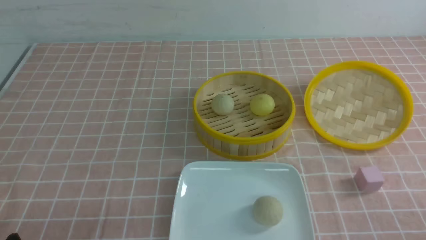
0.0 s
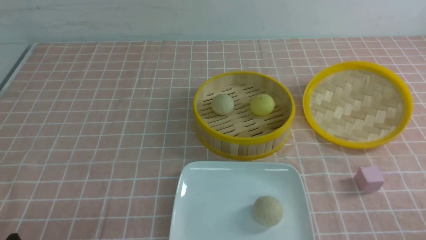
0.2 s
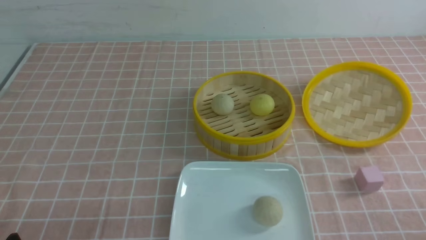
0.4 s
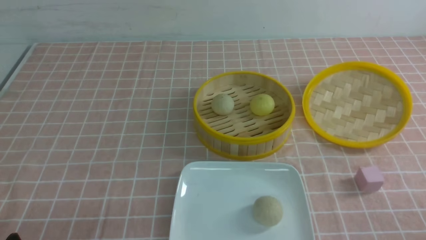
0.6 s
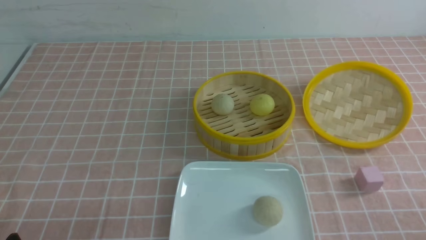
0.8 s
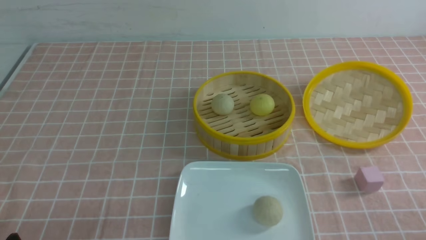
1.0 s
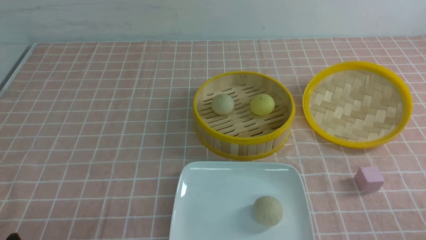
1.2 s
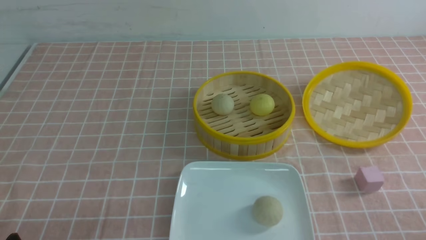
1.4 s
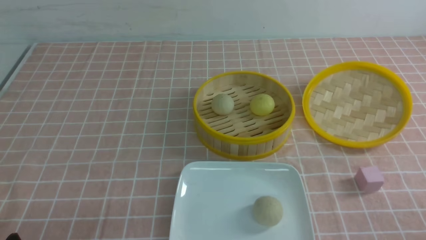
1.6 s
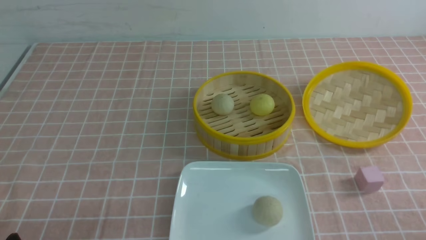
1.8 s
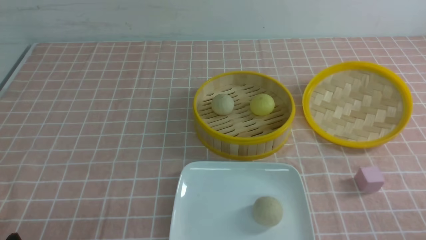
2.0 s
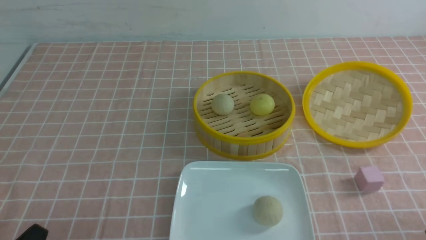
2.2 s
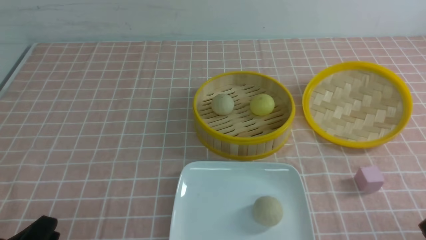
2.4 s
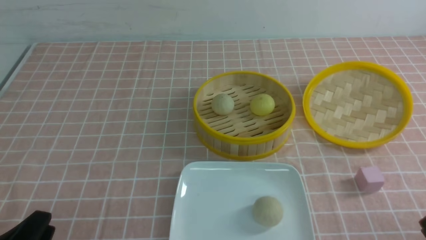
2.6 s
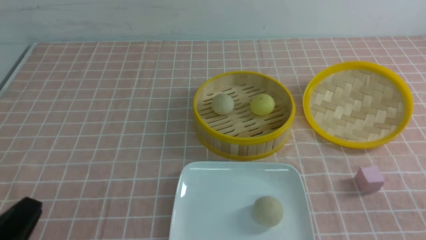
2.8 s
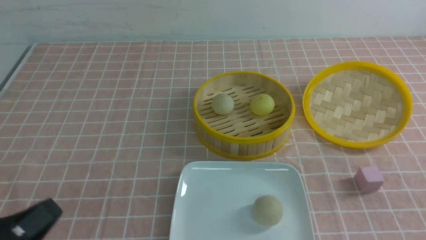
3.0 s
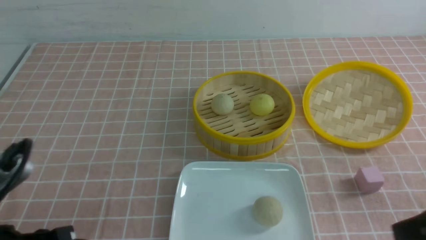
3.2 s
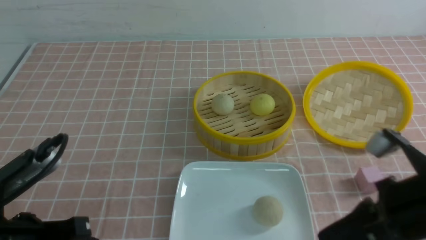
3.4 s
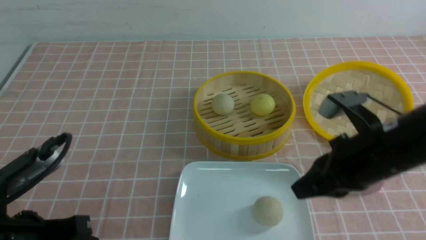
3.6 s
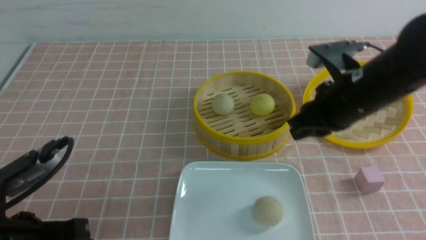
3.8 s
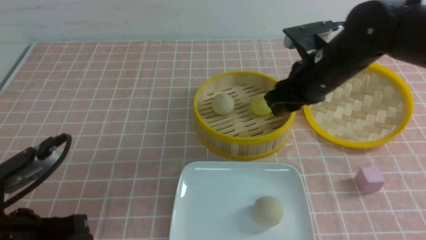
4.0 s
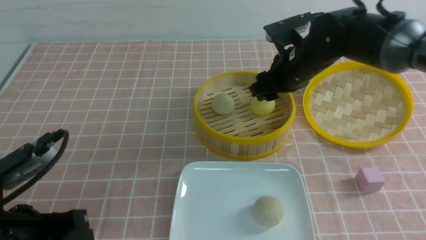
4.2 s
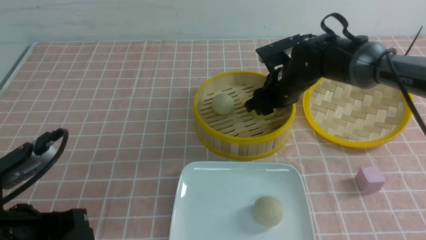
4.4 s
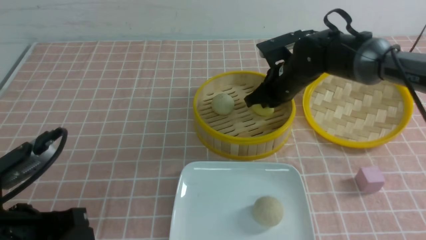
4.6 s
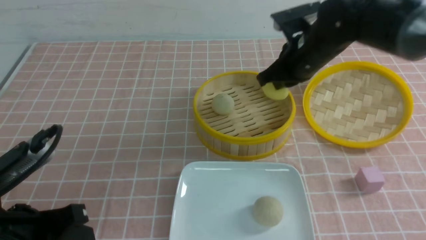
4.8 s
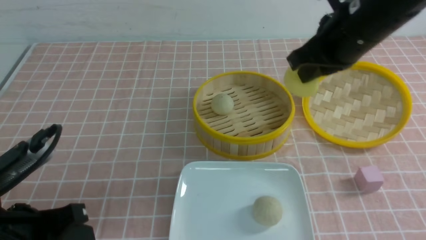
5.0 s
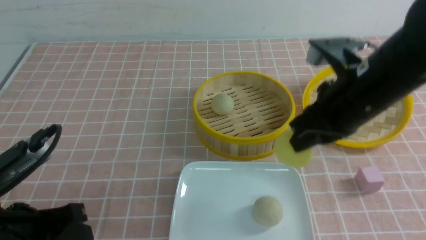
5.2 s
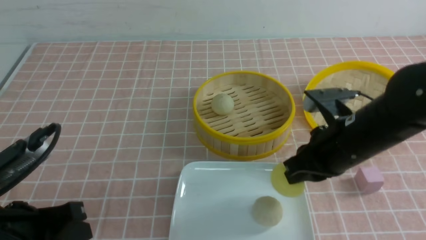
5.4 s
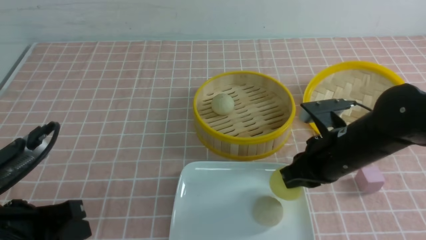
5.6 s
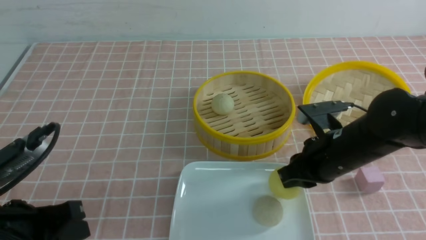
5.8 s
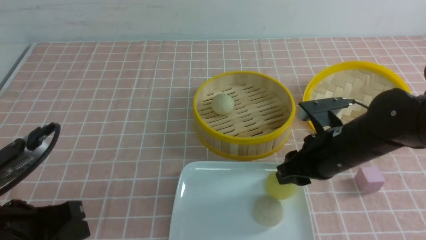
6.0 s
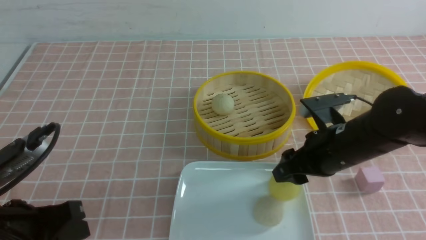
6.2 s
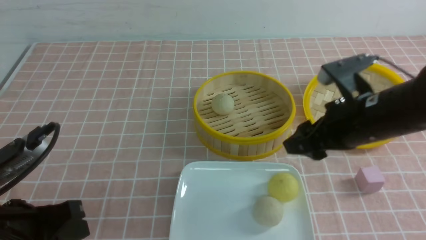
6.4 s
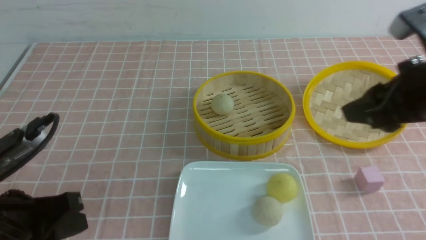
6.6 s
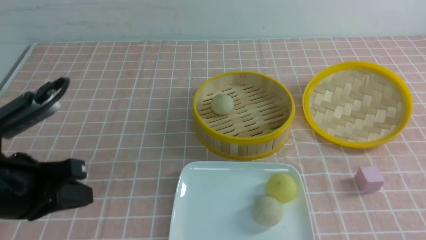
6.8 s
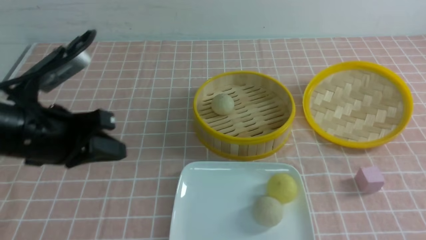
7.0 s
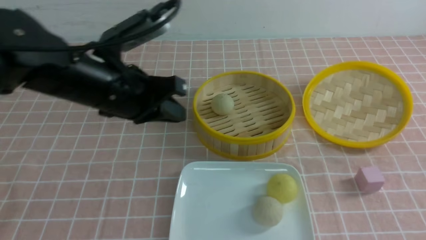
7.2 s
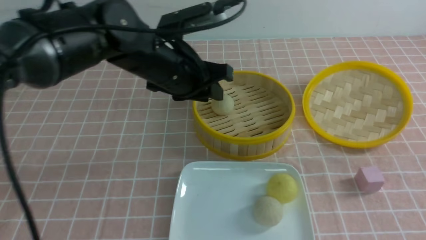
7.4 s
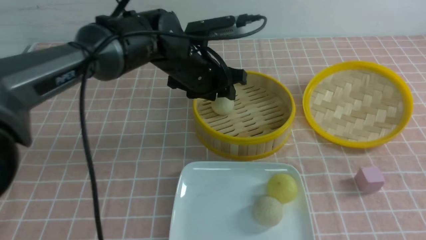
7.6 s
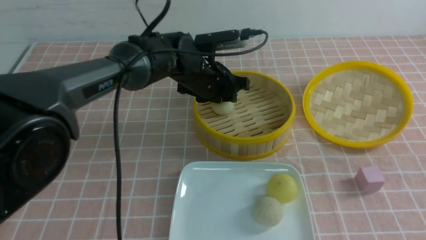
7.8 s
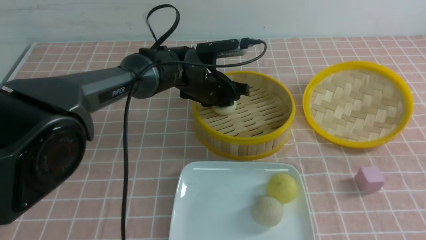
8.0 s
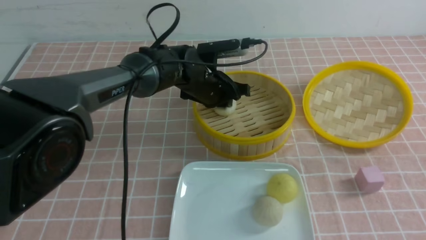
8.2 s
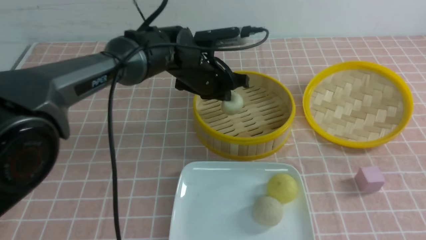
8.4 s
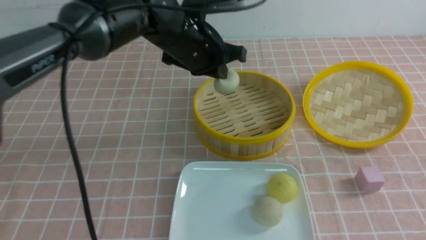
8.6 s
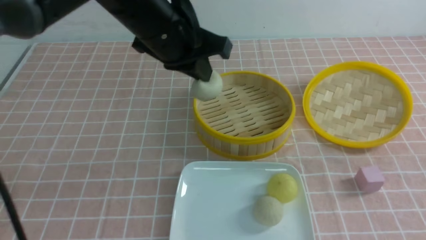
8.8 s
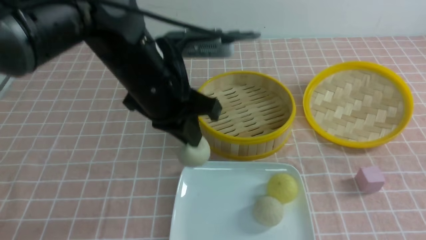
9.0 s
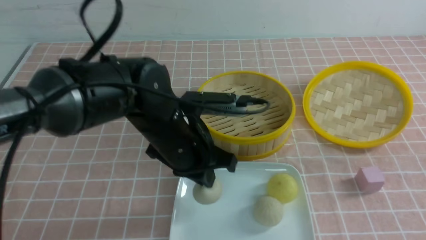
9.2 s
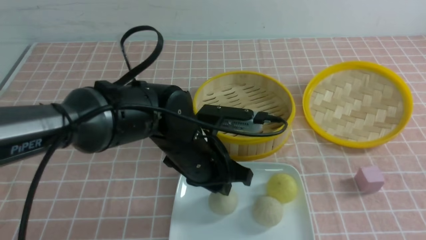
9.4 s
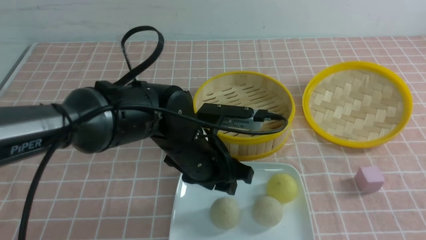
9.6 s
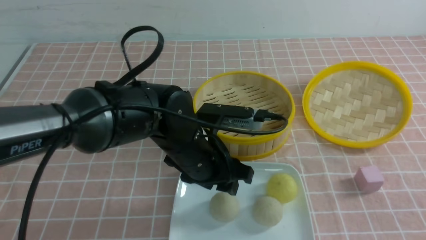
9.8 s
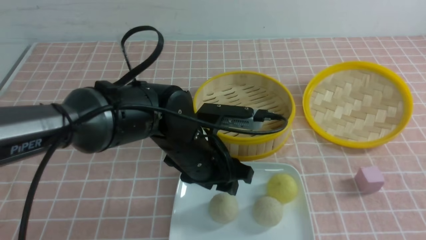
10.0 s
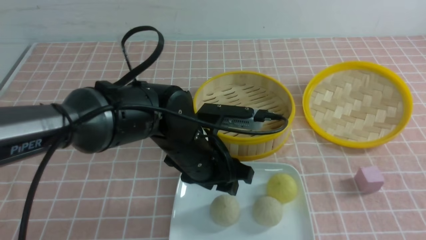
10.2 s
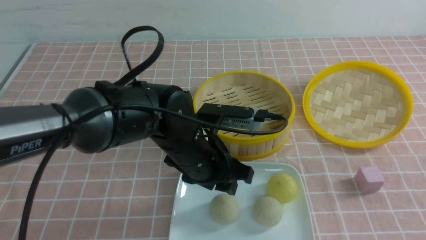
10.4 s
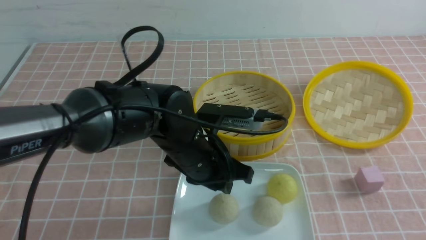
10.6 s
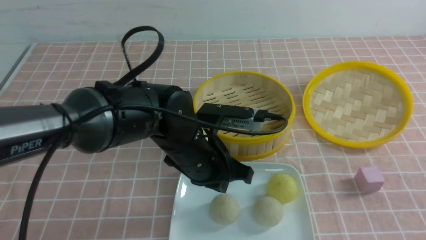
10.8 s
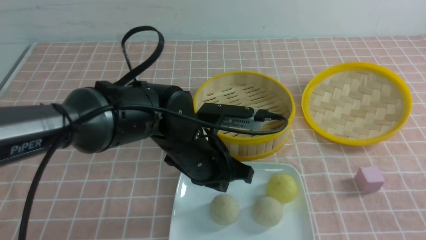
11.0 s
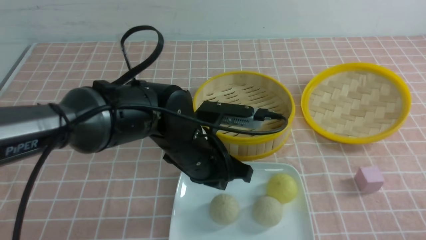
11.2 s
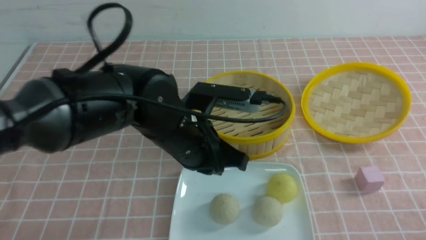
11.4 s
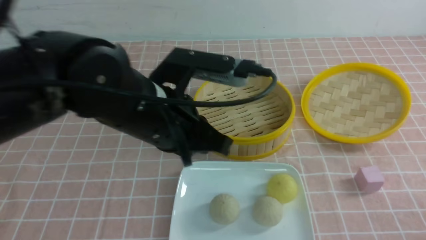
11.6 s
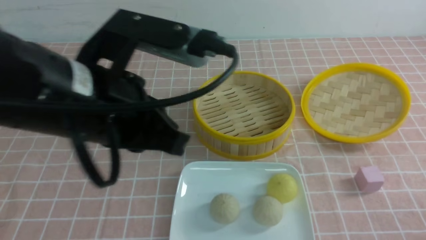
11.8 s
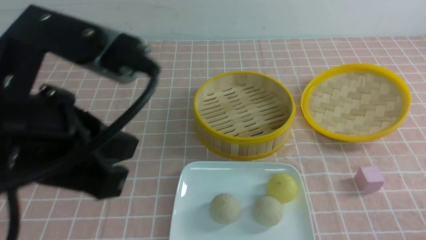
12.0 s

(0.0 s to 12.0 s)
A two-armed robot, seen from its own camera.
Step, 0.0 s - 4.6 s: use the right arm to grab the steamed stuffed bun that is closest to it.
Step, 4.8 s - 6.0 s: use the right arm to put the steamed stuffed bun into the plate.
Step, 6.4 s - 8.0 s: use the left arm to grab the steamed stuffed bun that is closest to it.
Step, 8.4 s - 9.6 s: use the left arm to put the steamed stuffed bun into the plate.
0.0 s - 1.6 s: Both grippers stay about where they are.
1.6 s - 3.0 s: The left gripper is displaced upward by roughly 10 cm, and closes up.
3.0 s - 4.4 s: The left gripper is displaced forward by some 5 cm. Meanwhile the right gripper moves forward and to the left, some 40 cm, and opens up.
4.4 s - 6.0 s: The right gripper moves backward, roughly 15 cm, and closes, then reopens.
6.0 s - 7.6 s: The left gripper moves forward and to the right, approximately 35 cm, and opens. The right gripper is displaced backward, to the right and upward by some 20 cm, and closes its fingers.
7.6 s - 9.0 s: The left gripper is displaced backward by approximately 10 cm, and closes.
9.0 s - 10.4 s: The left gripper goes approximately 10 cm downward, and opens up, while the right gripper travels backward by about 10 cm.
10.4 s - 12.0 s: The left gripper is displaced upward, backward and to the left by about 25 cm, and closes up. The right gripper shifts about 10 cm downward.

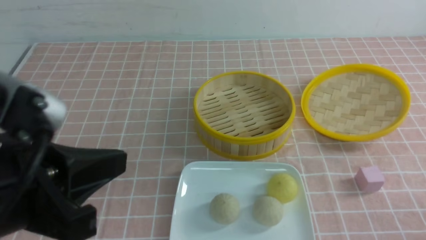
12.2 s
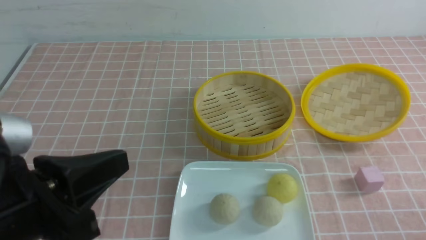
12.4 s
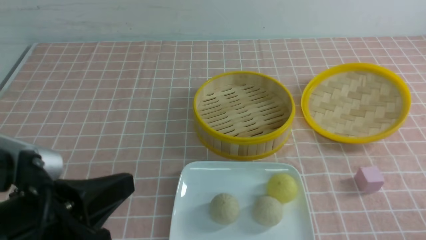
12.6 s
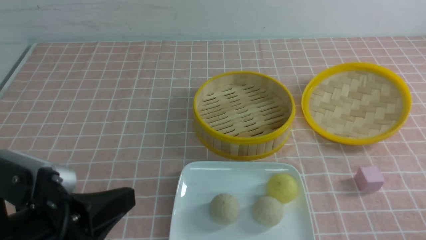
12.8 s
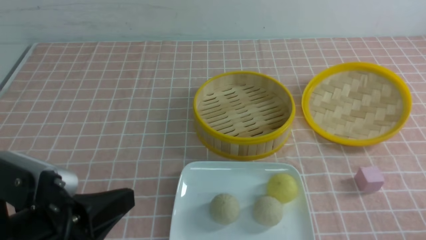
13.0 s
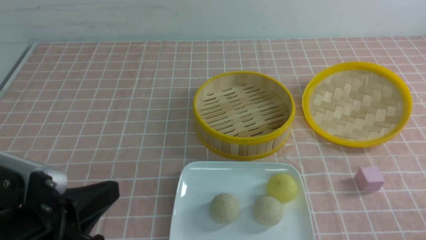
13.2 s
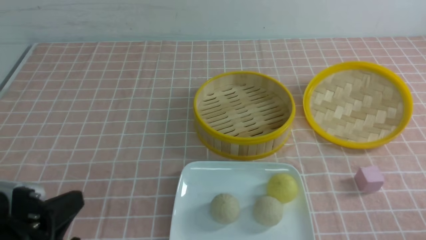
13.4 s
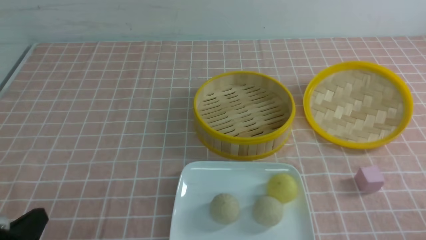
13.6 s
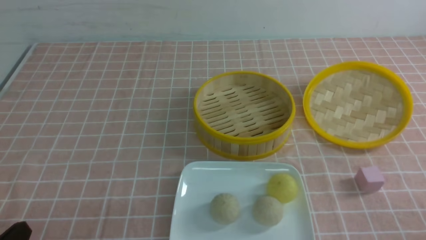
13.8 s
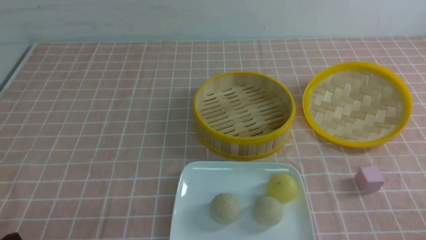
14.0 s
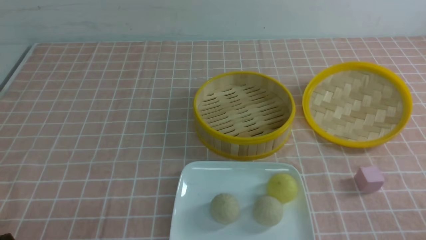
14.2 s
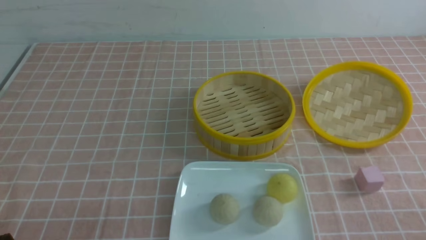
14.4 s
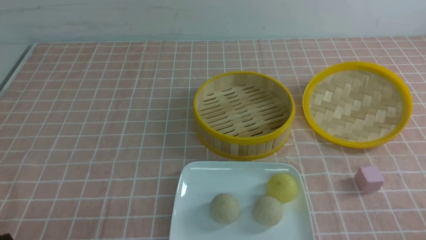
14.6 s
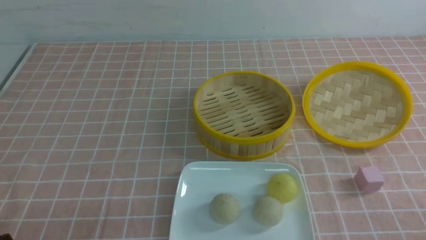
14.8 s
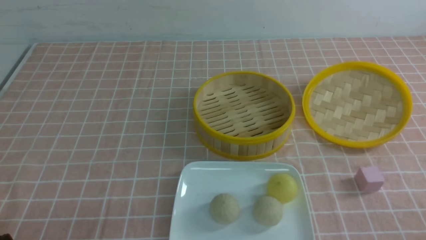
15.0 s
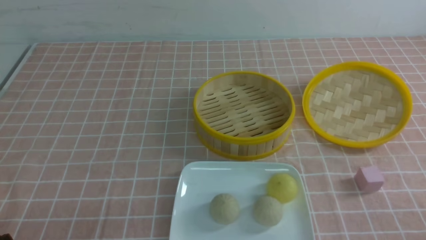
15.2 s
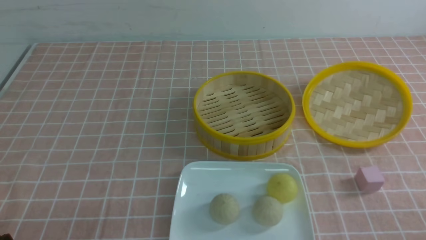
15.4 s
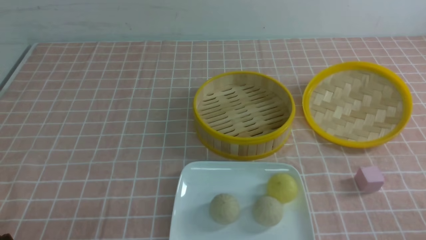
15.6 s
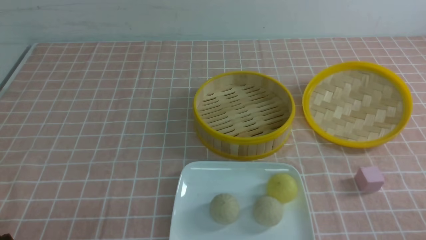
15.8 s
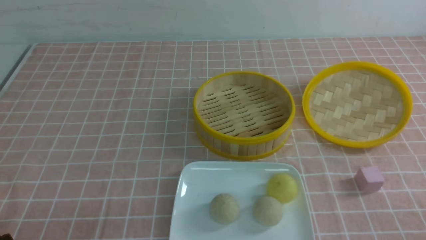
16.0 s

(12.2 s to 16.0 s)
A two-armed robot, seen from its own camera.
12.2 s - 13.4 s: The left gripper travels downward and to the left by about 15 cm.
13.4 s - 14.8 s: The left gripper heads downward, covering about 5 cm.
14.8 s - 16.0 s: Neither gripper changes place.

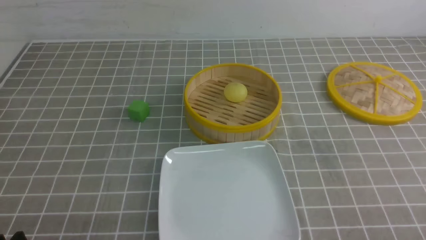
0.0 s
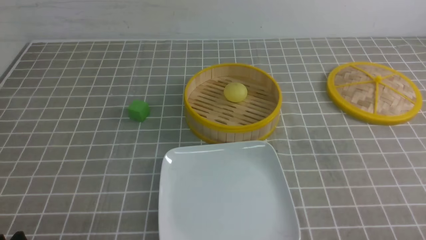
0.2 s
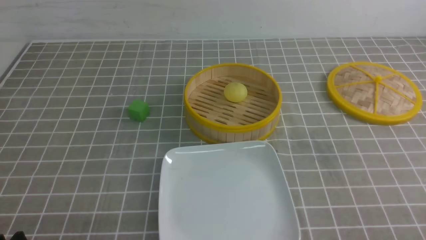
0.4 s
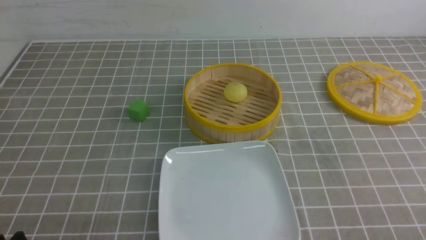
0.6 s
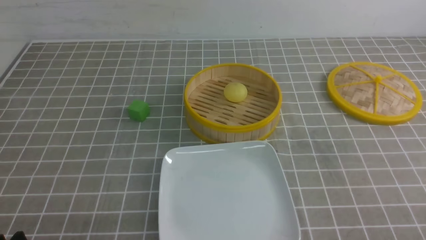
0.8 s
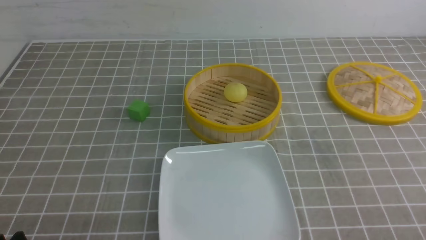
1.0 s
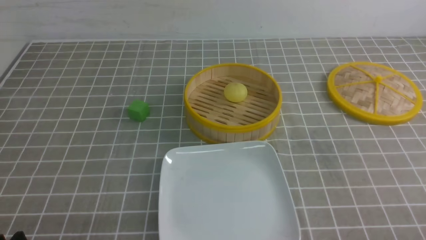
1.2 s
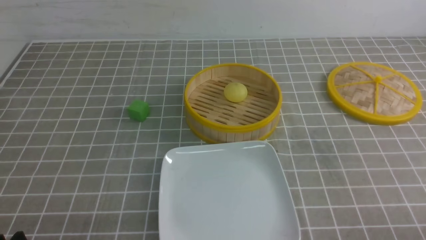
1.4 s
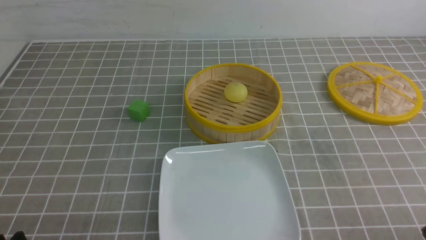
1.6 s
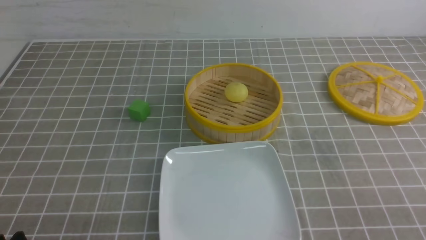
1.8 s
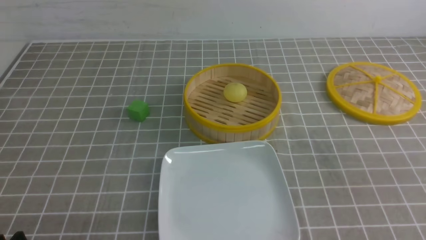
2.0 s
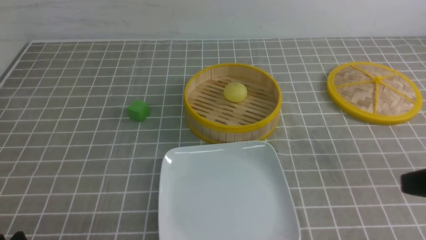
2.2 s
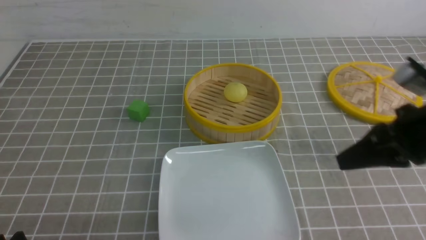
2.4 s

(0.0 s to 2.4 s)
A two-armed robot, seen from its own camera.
1.2 s - 2.4 s: The right gripper heads forward, upward and to the left, covering roughly 25 cm.
